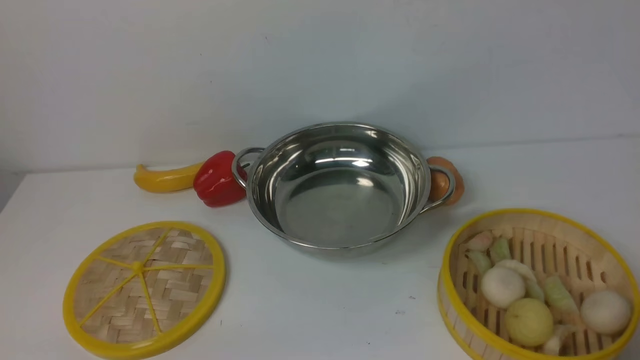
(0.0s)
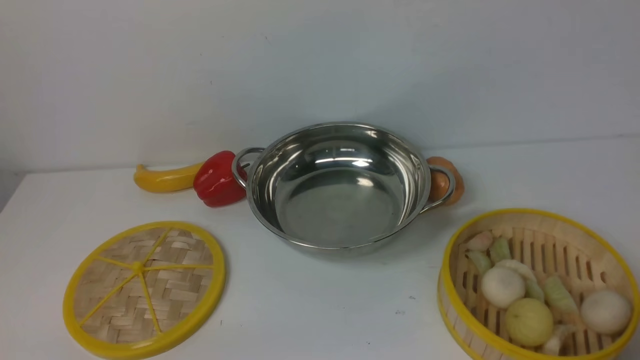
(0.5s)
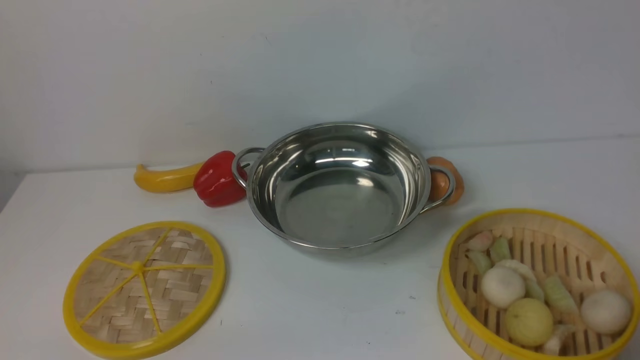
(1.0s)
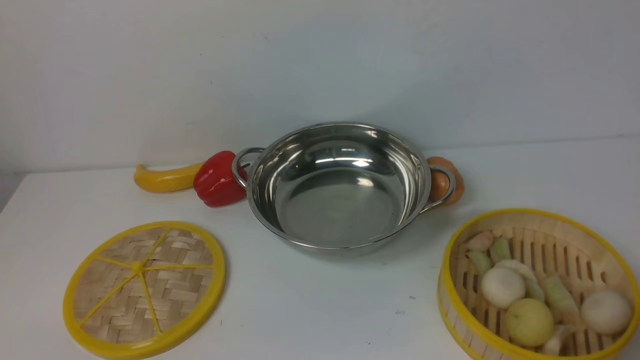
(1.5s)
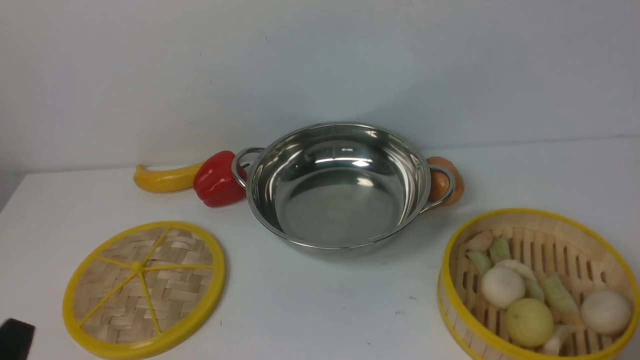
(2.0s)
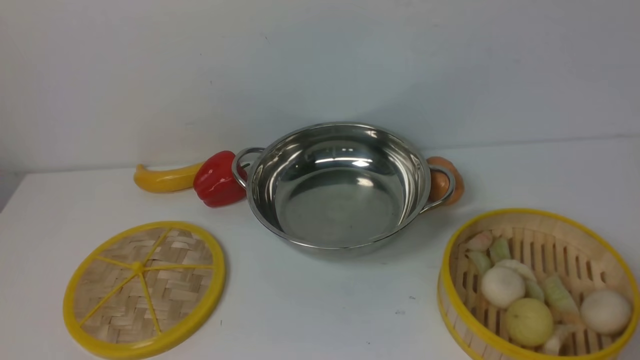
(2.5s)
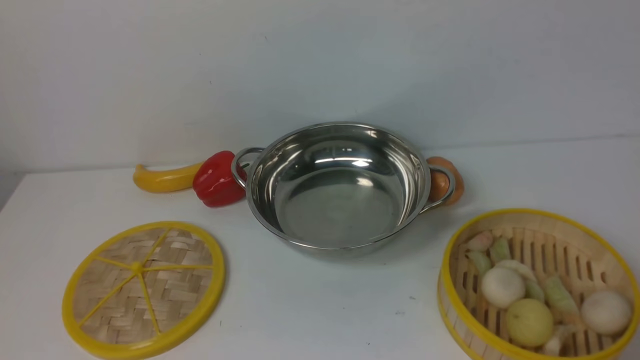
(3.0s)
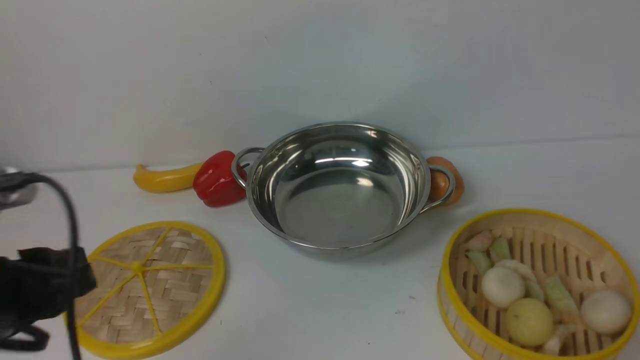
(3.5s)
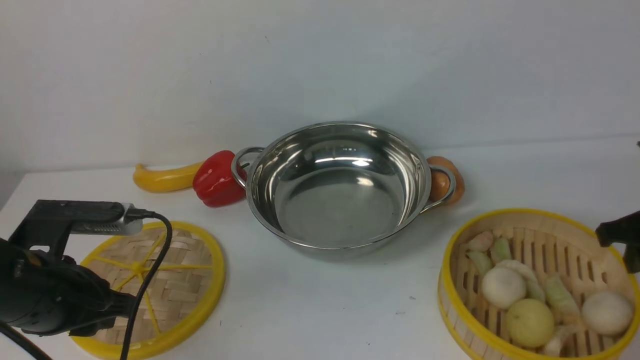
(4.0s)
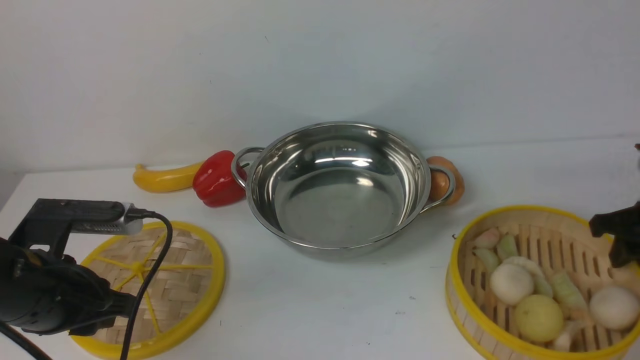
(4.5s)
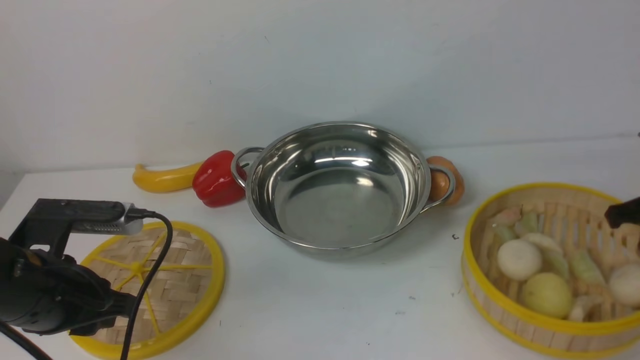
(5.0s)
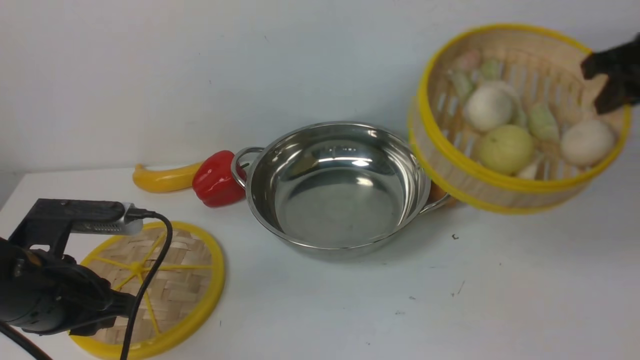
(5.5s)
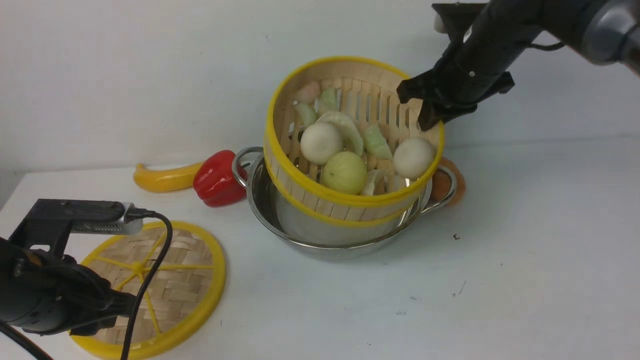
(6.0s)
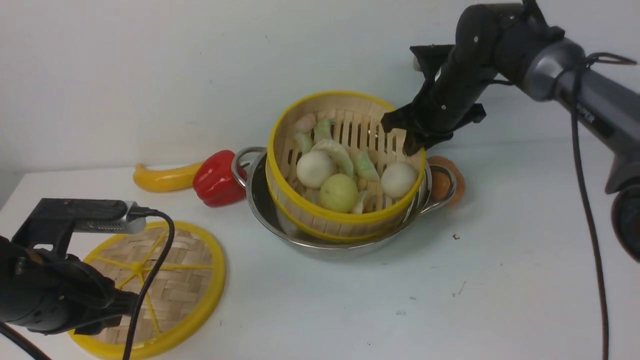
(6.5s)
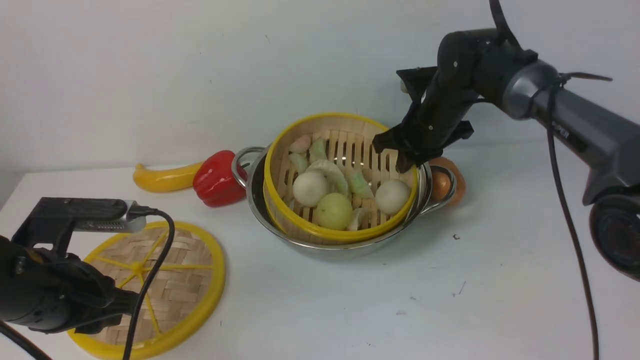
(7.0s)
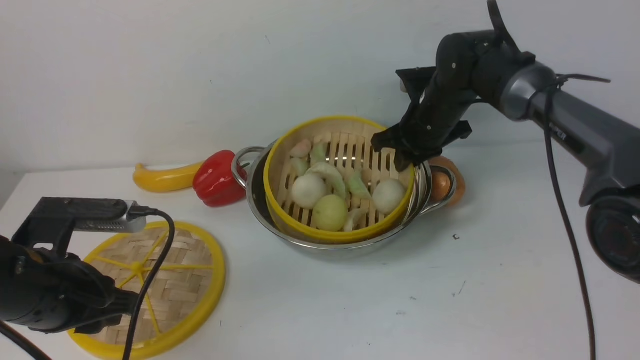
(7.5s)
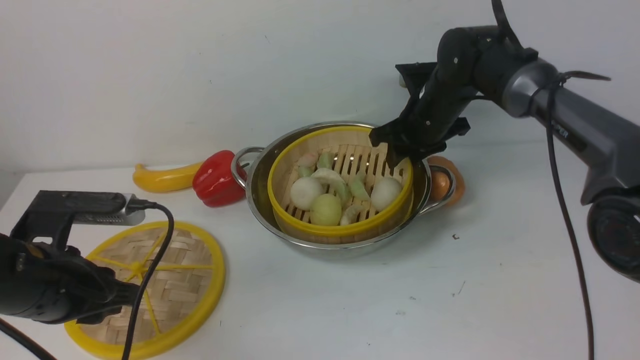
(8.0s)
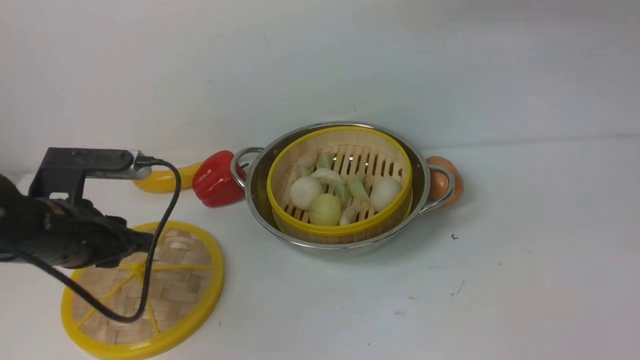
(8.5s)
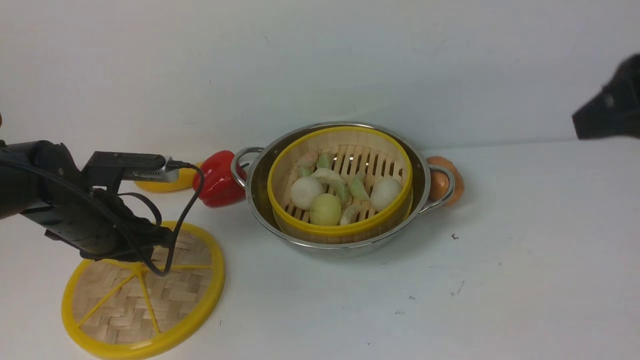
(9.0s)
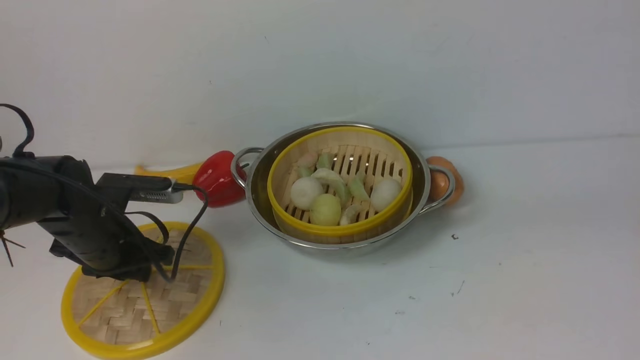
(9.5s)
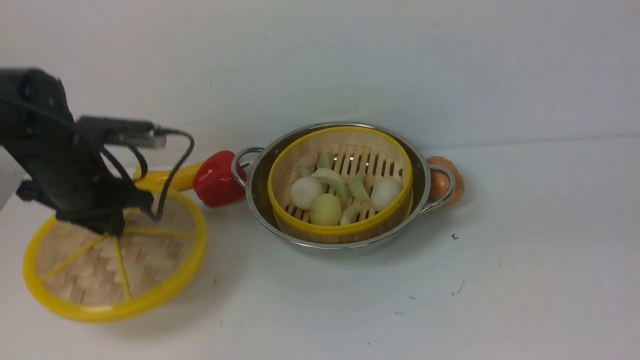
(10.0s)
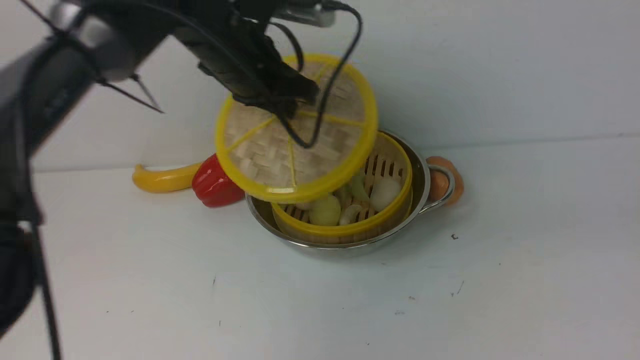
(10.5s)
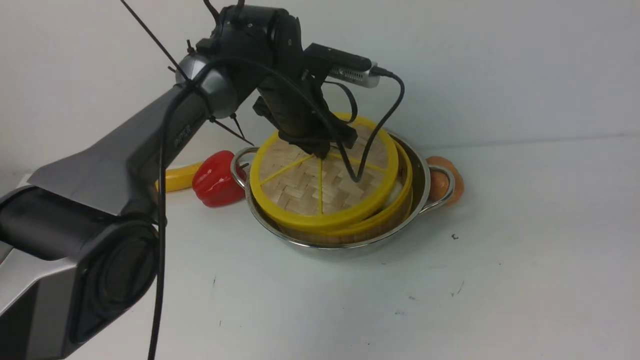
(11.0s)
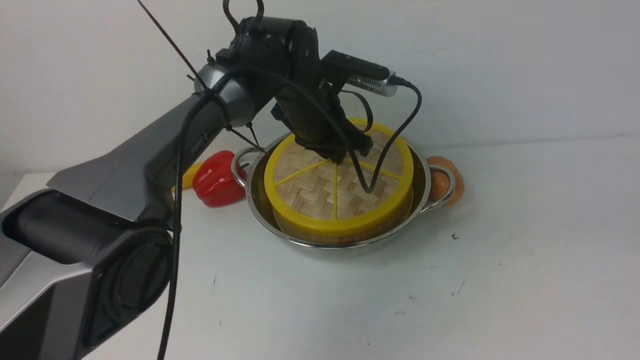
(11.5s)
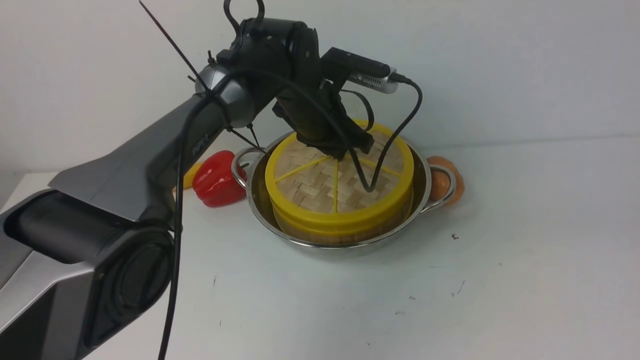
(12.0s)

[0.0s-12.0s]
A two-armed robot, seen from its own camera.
Task of the whole recording: place the steamer in the pot on the white table, and put the lid on the steamer.
Step, 0.0s to 5.0s: use the right arm to lift the steamer closest to it.
Step, 5.5s to 8.0s: use the right arm to put the steamer into the iron steamer pot in the middle.
Step, 8.5s to 10.0s: use the left arm to lift the lid of the steamer.
2.0s to 4.0s: Both grippers travel together forward, roughly 20 cm.
4.0s to 6.0s: The right gripper goes about 25 cm to the left and forward, and closes up.
6.0s to 8.0s: The right gripper heads downward, covering about 5 cm, and opens its fingers.
8.0s to 10.0s: The right gripper goes about 40 cm backward and upward; the left gripper goes about 15 cm forward.
10.0s to 12.0s: The left gripper moves to the right and forward, about 25 cm.

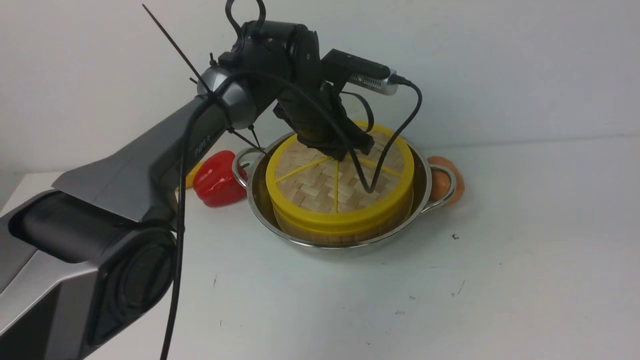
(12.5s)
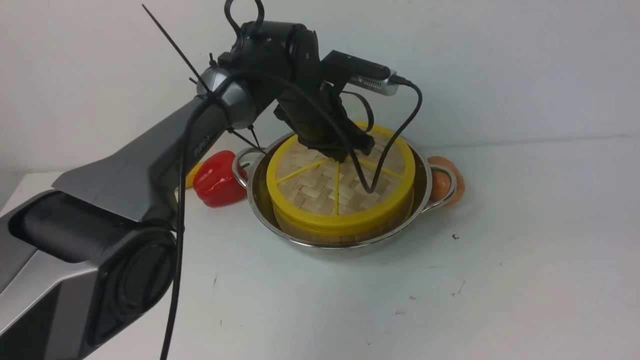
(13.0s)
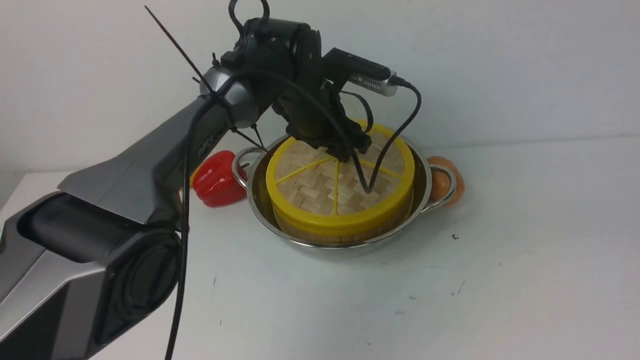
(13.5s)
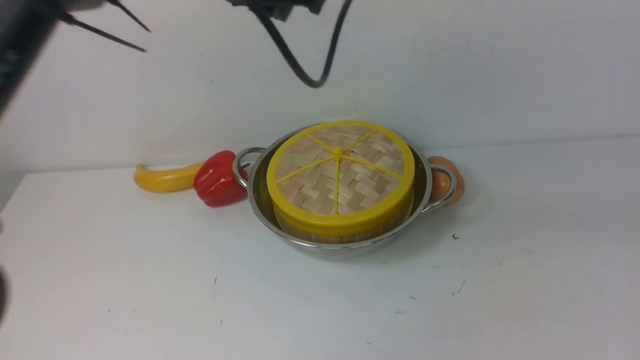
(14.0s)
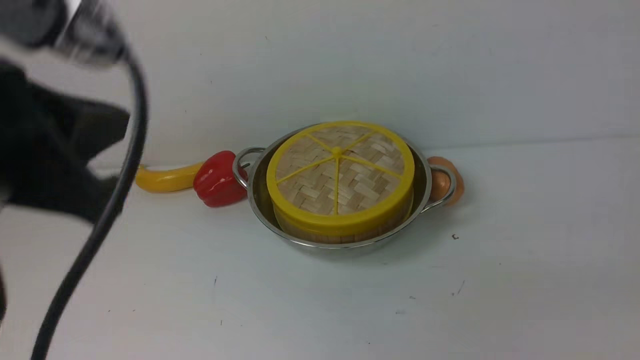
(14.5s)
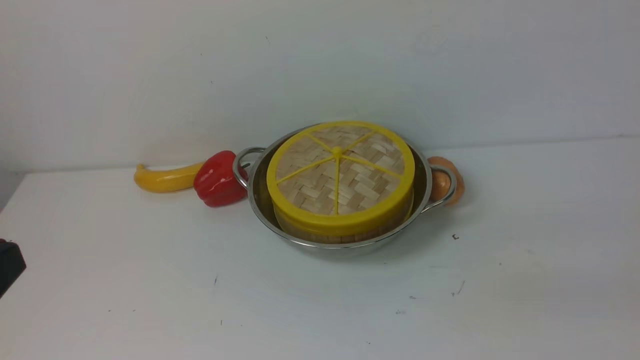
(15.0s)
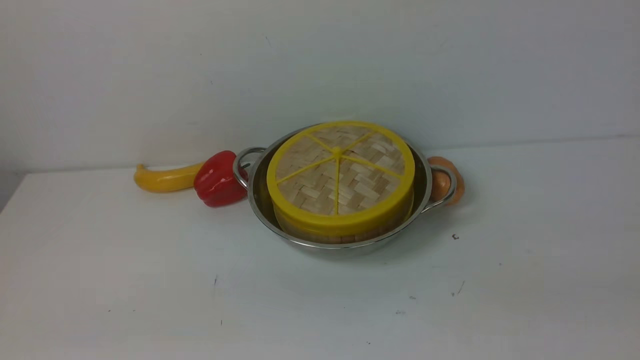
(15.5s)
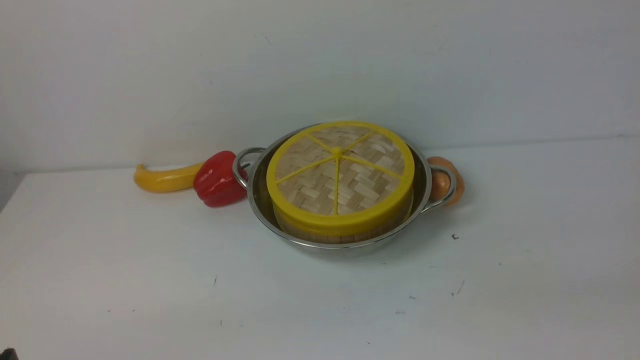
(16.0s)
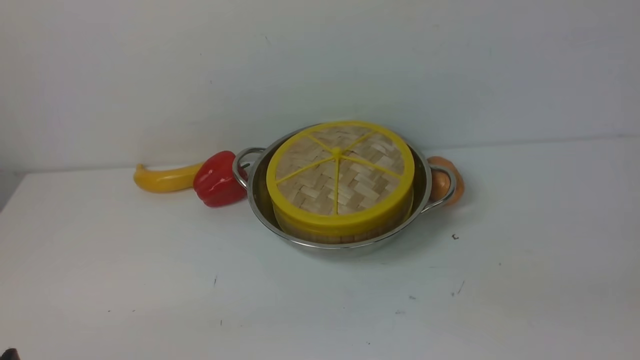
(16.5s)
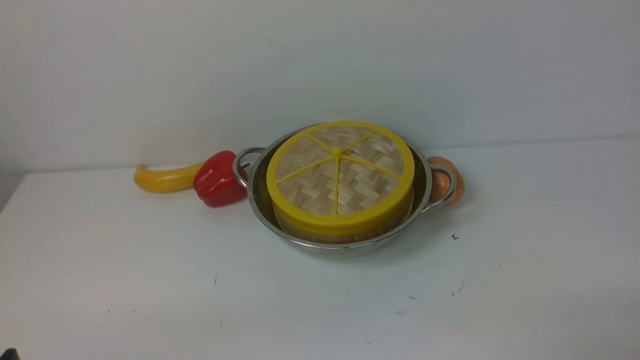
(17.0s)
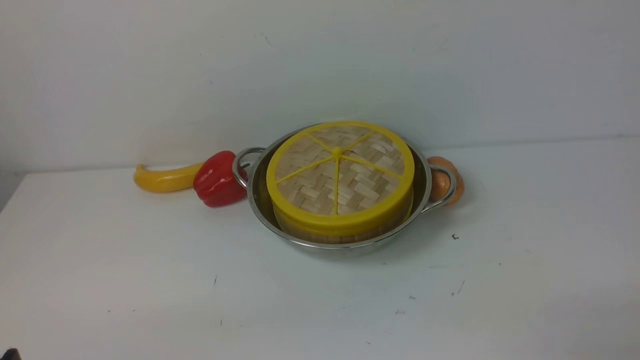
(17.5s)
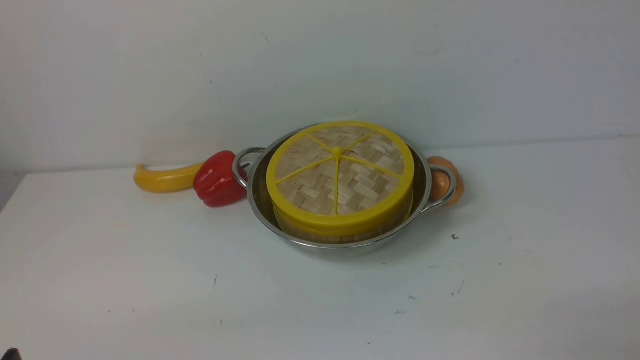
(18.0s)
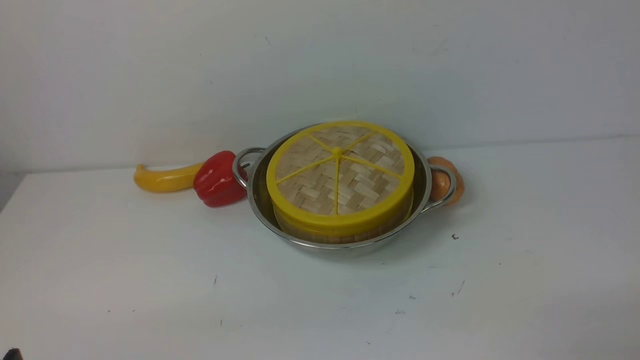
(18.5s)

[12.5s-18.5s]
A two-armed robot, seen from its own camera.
Task of the whole recording: place the steamer in the pot on the white table, and put the lid on the steamer.
12.5s to 14.5s: The left gripper heads backward, upward and to the left, covering some 40 cm, and closes up, while the right gripper shifts some 10 cm downward, and closes.
14.5s to 16.5s: The left gripper shifts roughly 25 cm downward and backward.
